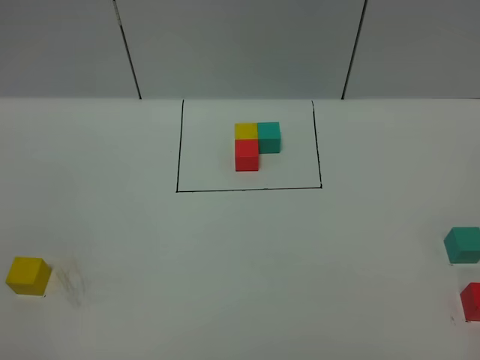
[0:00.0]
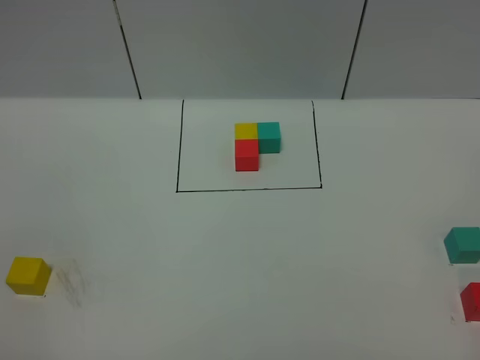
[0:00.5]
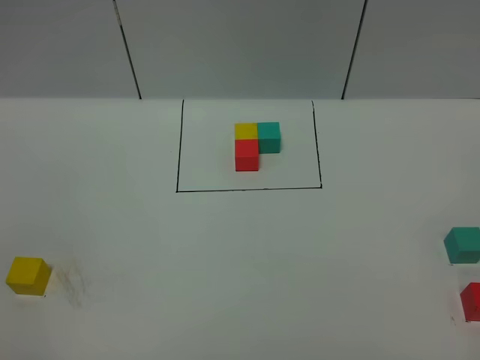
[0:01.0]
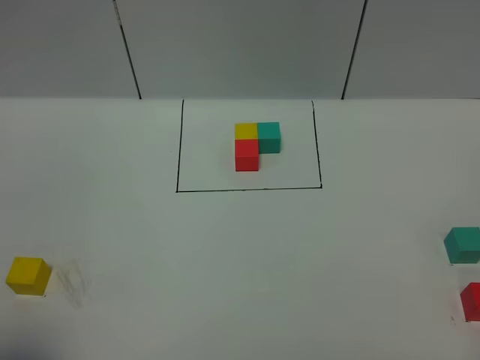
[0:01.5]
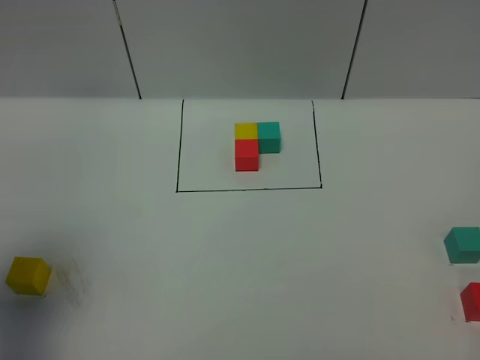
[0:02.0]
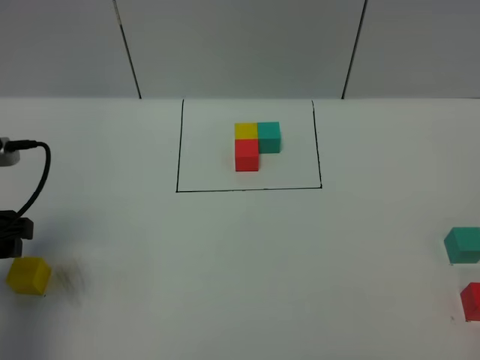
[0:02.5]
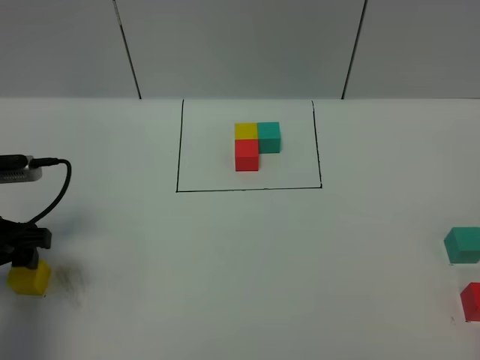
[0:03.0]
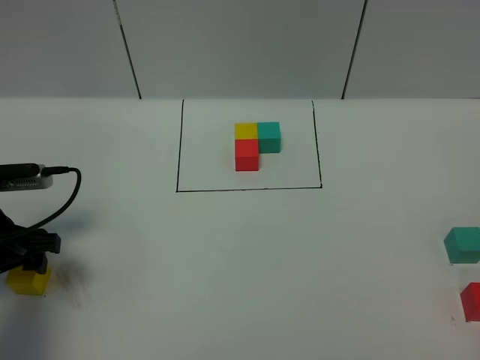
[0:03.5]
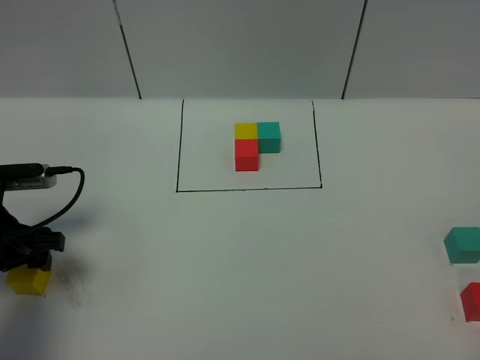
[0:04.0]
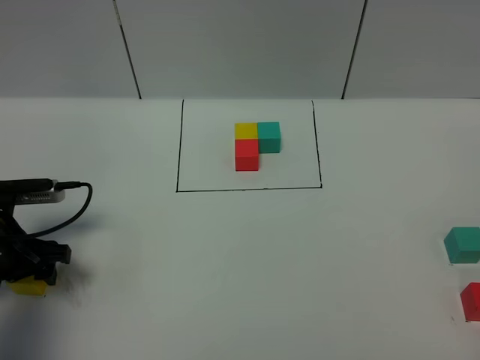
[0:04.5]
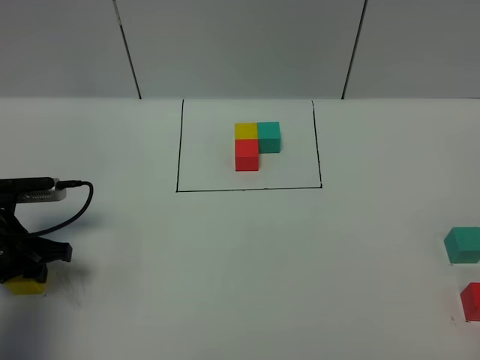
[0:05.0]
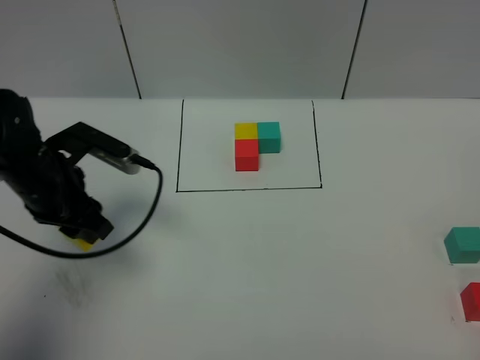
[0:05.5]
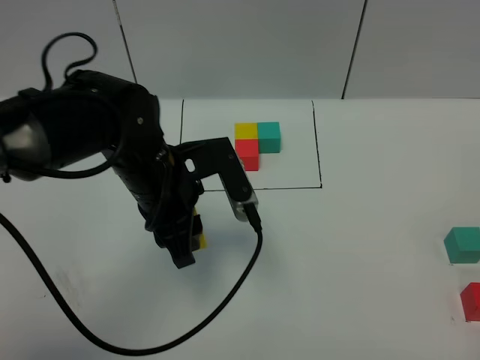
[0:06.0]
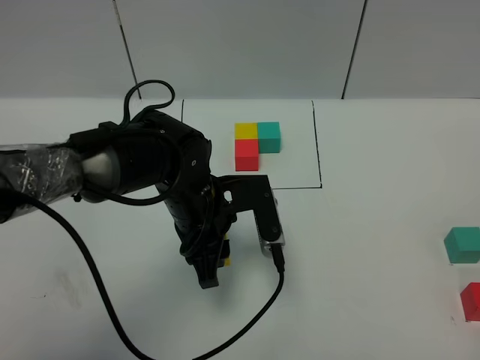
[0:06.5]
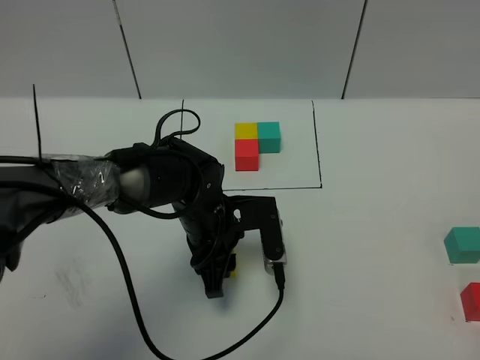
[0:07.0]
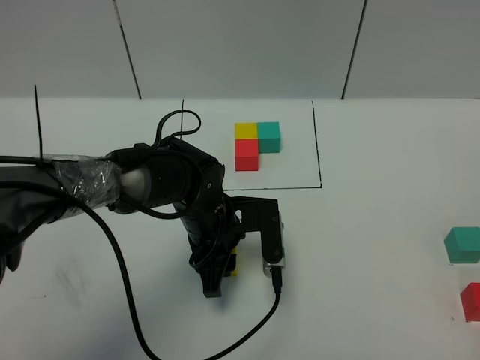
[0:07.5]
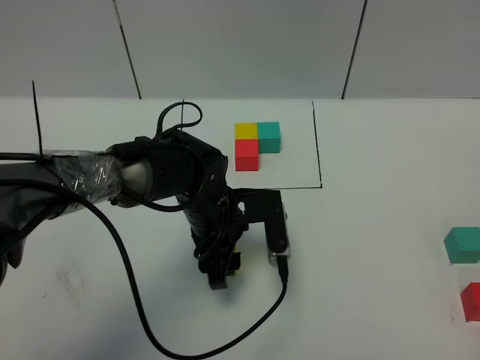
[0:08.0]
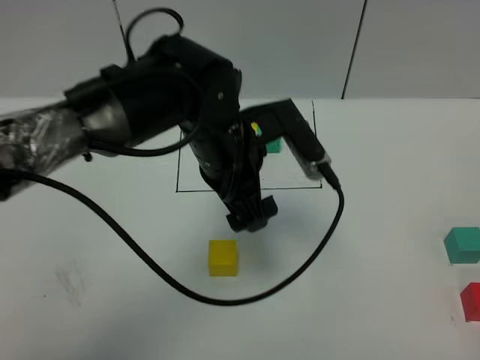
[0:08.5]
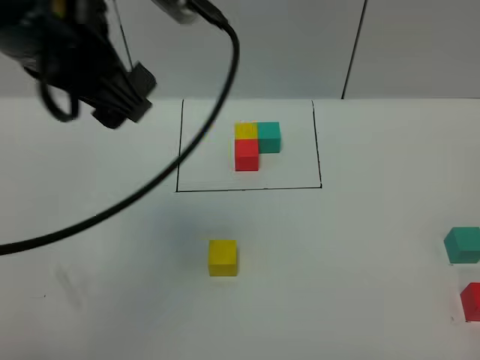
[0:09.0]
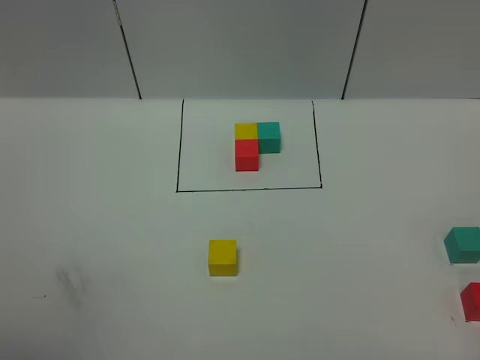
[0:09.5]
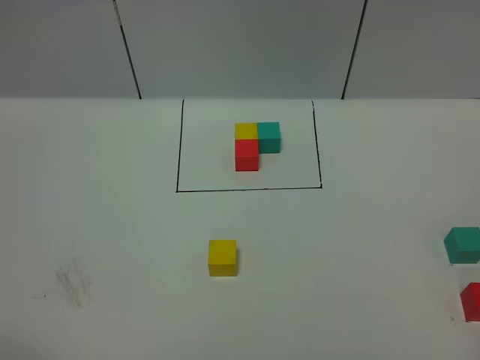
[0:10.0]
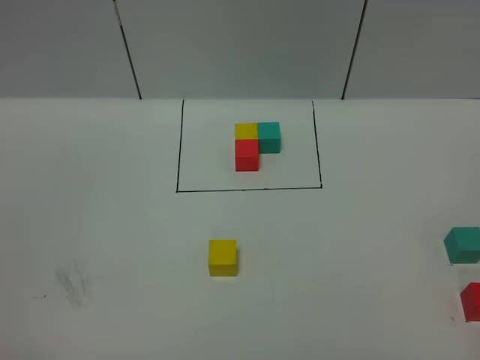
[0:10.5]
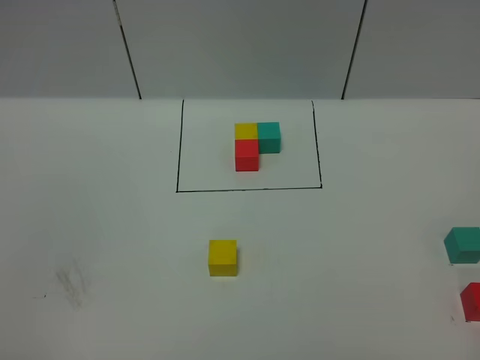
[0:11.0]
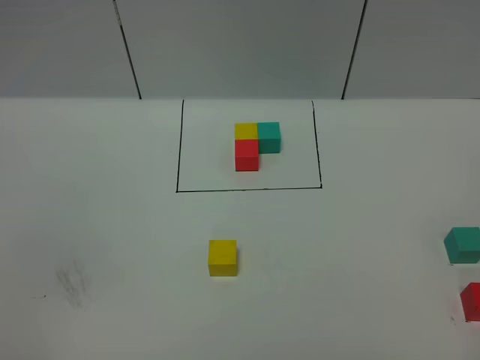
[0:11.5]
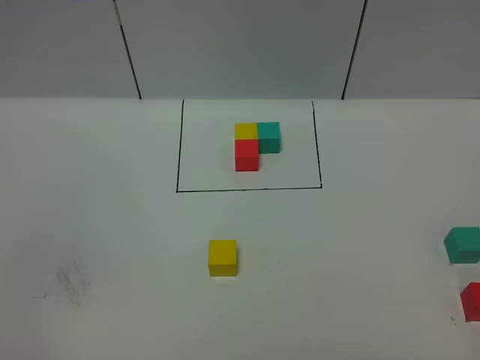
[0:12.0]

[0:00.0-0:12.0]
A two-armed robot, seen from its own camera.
Task of the whole recording: According to the building block template in front, assemble the scattered blocks together.
Step, 0:02.0 to 0:08.0: Put the yellow cube in the center of the table.
0:00.0 to 0:02.0: The left gripper is displaced forward by approximately 20 cm.
0:02.0 to 0:04.0: The left gripper heads downward and forward, covering about 15 cm.
0:04.0 to 0:06.0: The left gripper goes about 20 cm to the right, and closes its fingers.
0:06.0 to 0:08.0: The left gripper travels downward by about 10 cm, and opens up.
0:08.0 to 0:10.0: The left gripper travels upward, backward and to the left by roughly 60 cm, and opens.

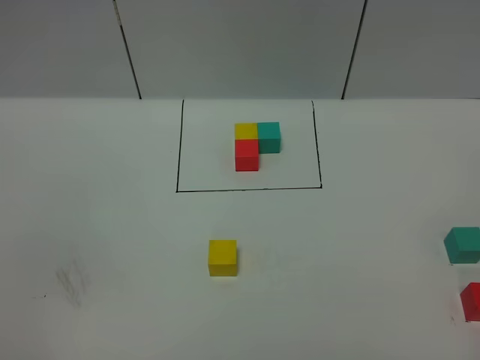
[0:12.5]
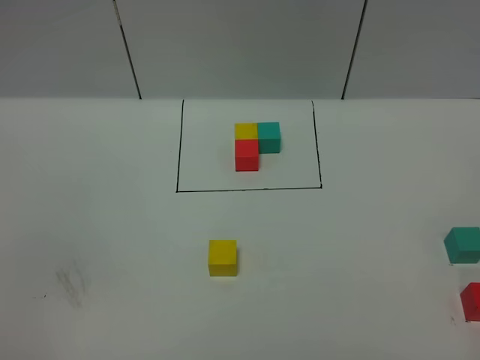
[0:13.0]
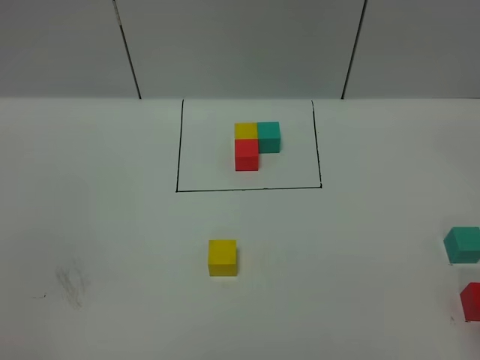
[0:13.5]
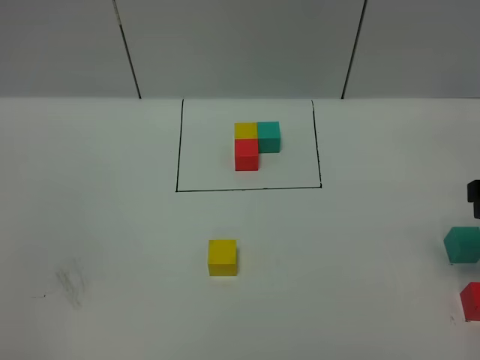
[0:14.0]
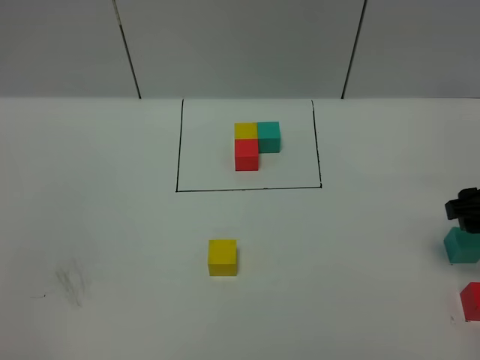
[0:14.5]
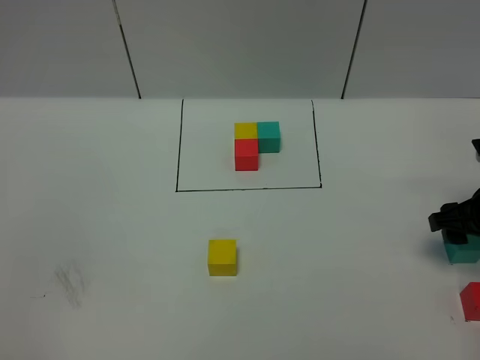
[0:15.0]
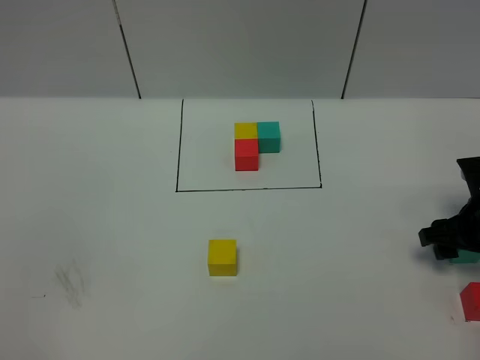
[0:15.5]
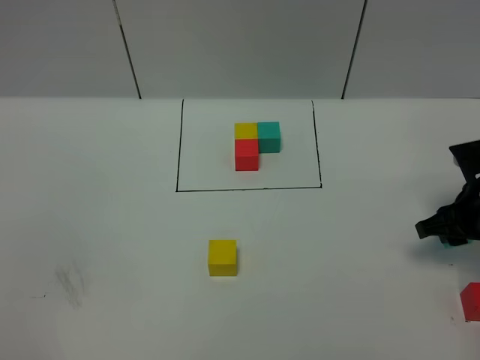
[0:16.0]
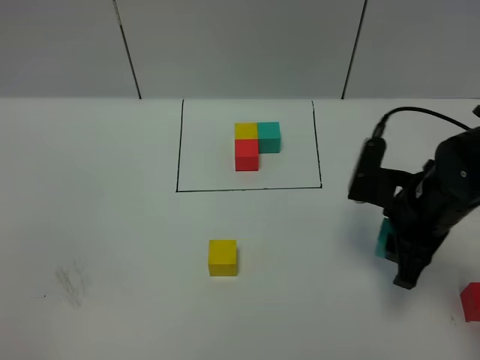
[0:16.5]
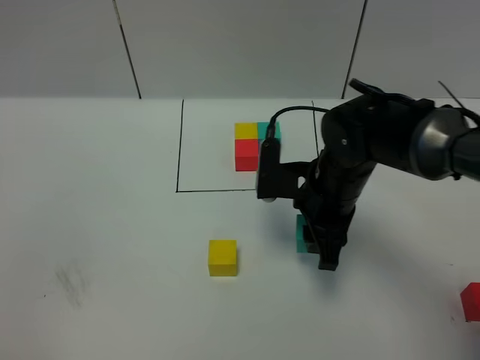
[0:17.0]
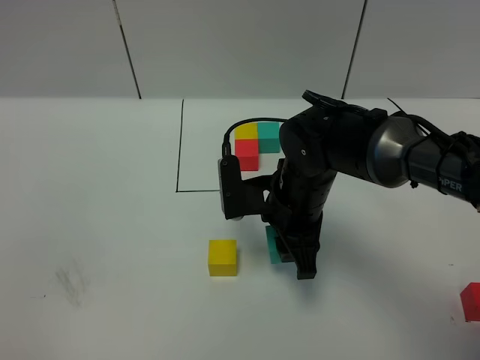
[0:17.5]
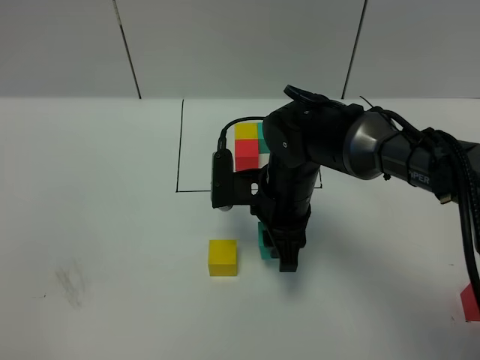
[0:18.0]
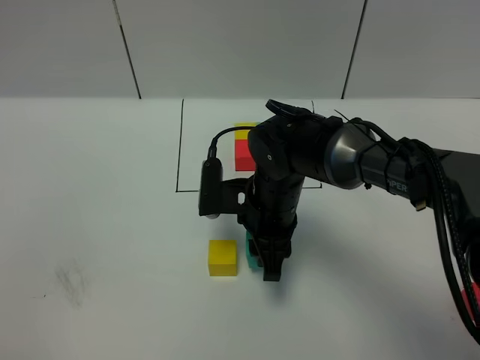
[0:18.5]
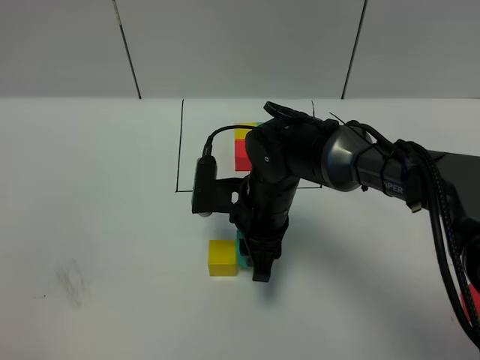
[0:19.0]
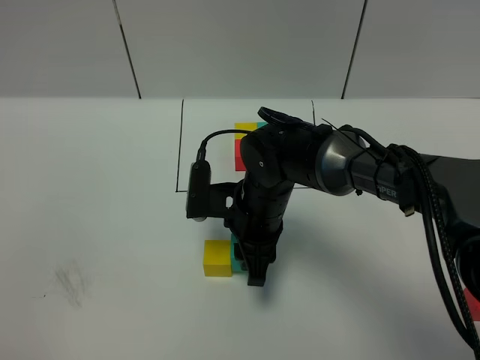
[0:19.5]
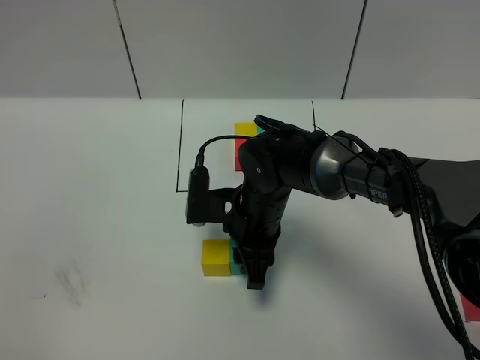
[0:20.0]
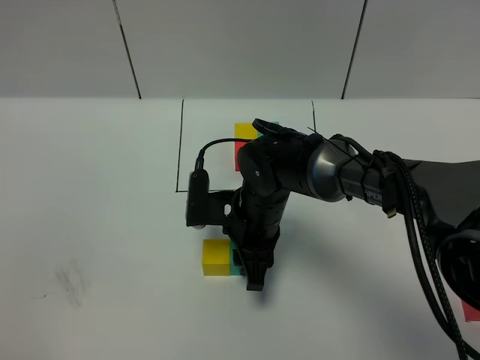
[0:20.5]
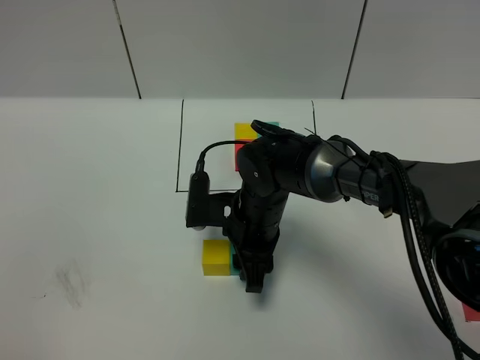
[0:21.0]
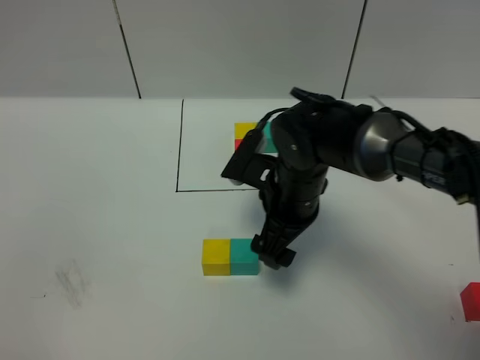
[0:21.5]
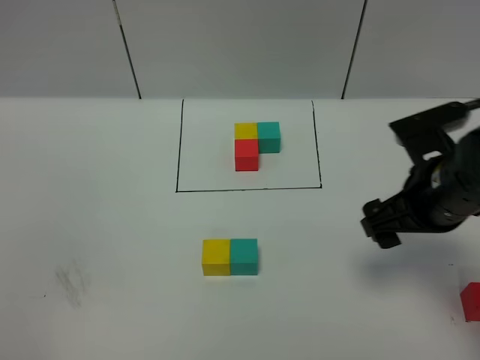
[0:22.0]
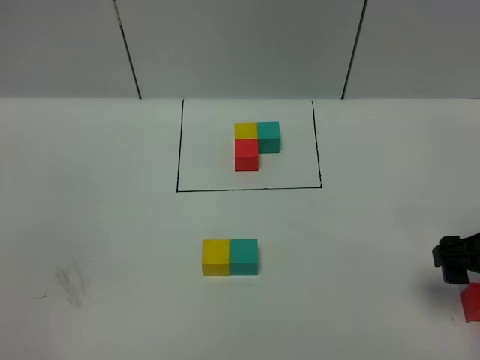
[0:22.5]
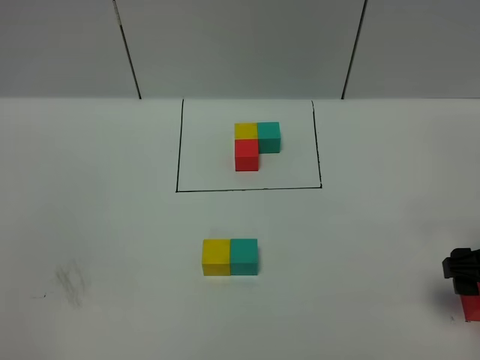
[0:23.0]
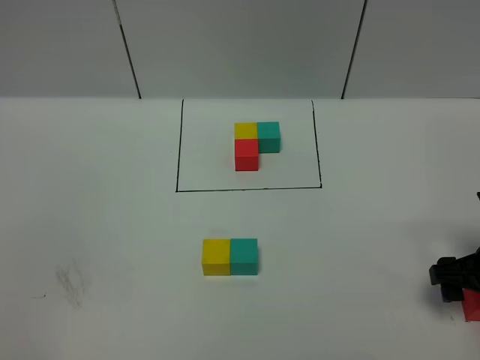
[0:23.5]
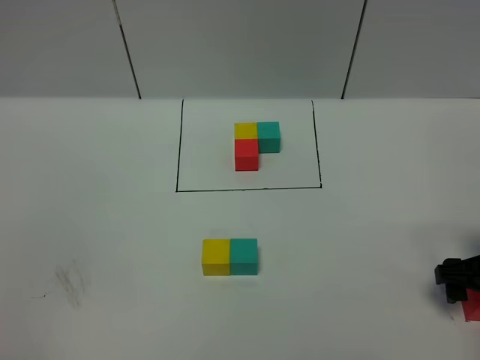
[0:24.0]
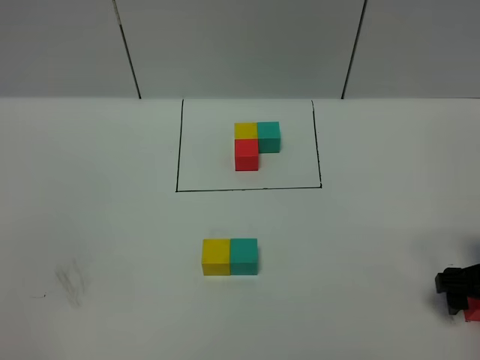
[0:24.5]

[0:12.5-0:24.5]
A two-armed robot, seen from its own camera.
Task of the whole recording: According to the building block template in front, assemble the scattered blocks together.
Step, 0:12.5 to 0:21.0: Put the green cube on the right of the yellow cube.
0:12.5 to 0:14.5: The right gripper heads forward, covering about 30 cm.
0:14.5 to 0:16.5: The right gripper is displaced to the left by roughly 10 cm, and closes up.
0:16.5 to 0:18.5: The right gripper heads to the left, covering roughly 15 cm.
0:18.5 to 0:20.5: There are only small adjustments of the grippers.
0:20.5 to 0:22.5: The right gripper is displaced to the right by some 25 cm, and opens its fingers.
0:22.5 to 0:24.5: The right gripper is displaced downward by some 5 cm.

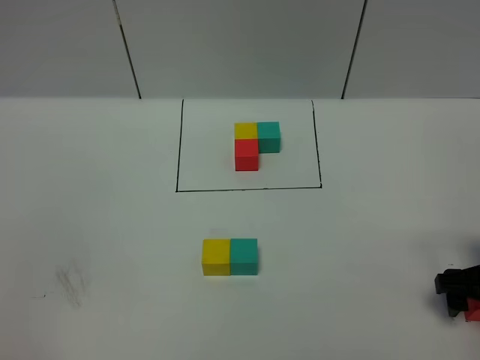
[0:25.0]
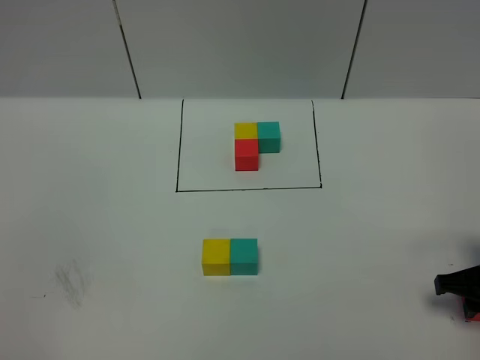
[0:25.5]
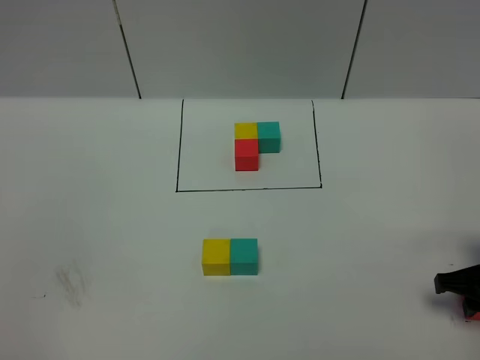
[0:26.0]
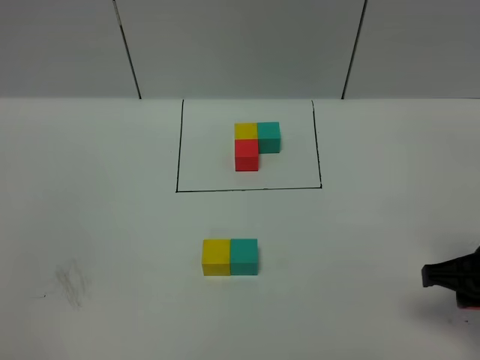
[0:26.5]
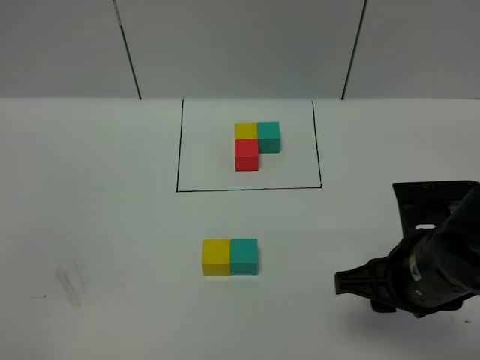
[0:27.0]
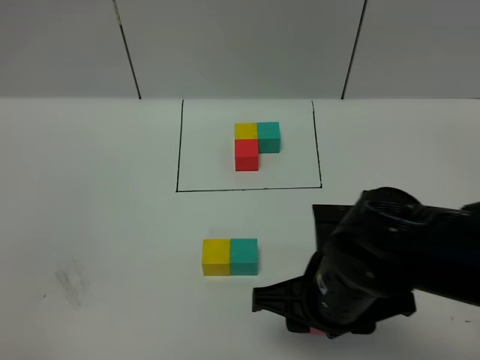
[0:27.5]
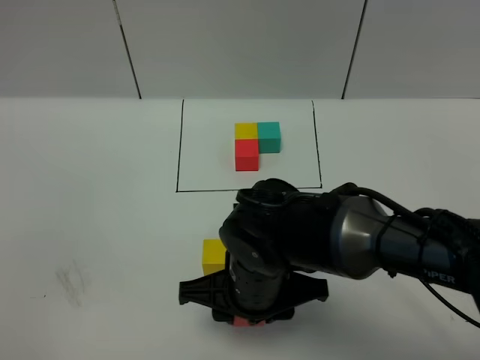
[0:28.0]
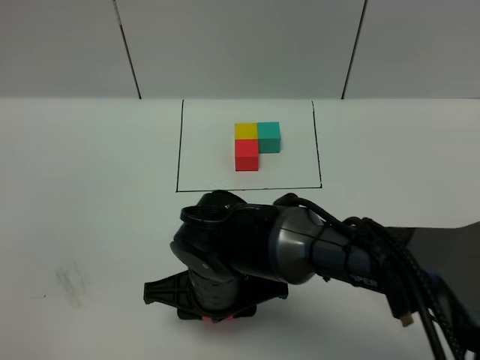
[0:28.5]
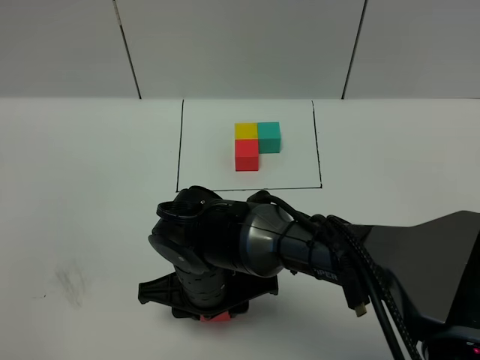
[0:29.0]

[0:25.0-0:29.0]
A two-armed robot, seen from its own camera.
Task of the whole recording: According to the building block template in front, assemble the scattered blocks together.
0:25.0 to 0:27.0: The right gripper moves to the left and upward, some 15 cm, and closes its fingers.
0:27.0 to 0:29.0: The right gripper travels to the left by roughly 20 cm.
